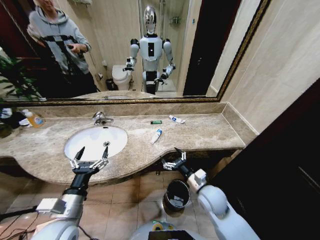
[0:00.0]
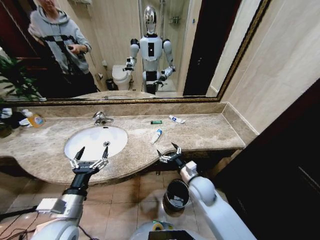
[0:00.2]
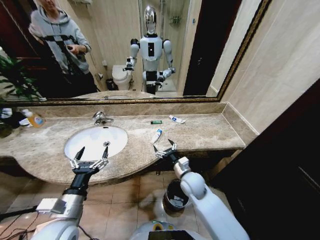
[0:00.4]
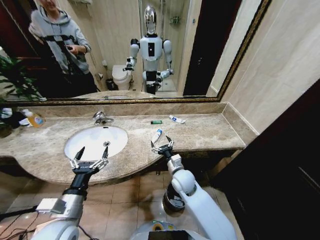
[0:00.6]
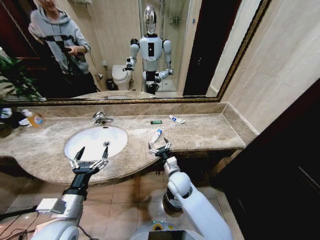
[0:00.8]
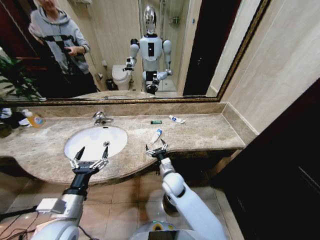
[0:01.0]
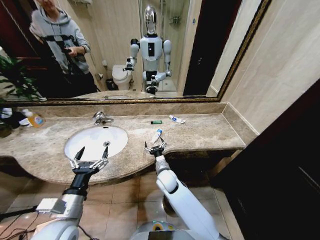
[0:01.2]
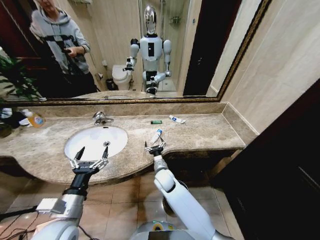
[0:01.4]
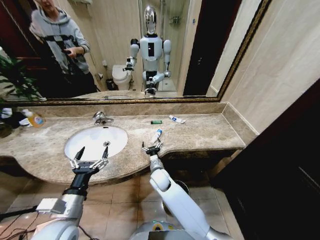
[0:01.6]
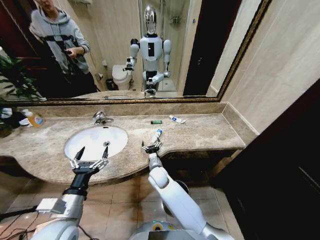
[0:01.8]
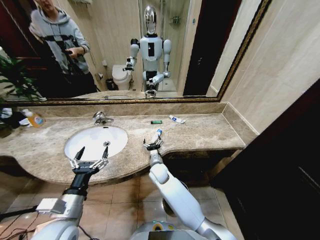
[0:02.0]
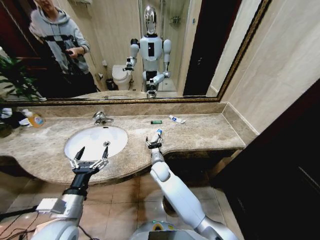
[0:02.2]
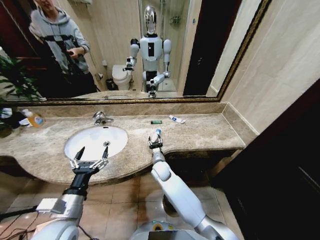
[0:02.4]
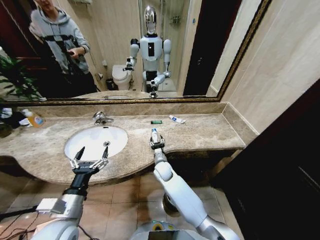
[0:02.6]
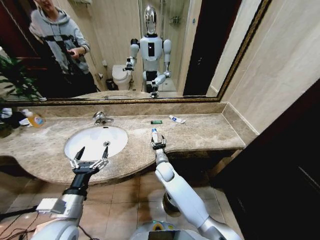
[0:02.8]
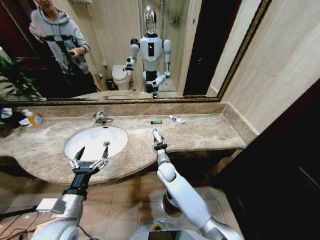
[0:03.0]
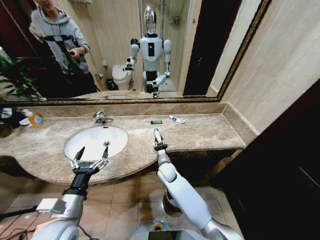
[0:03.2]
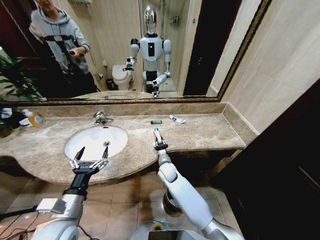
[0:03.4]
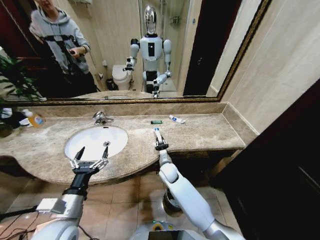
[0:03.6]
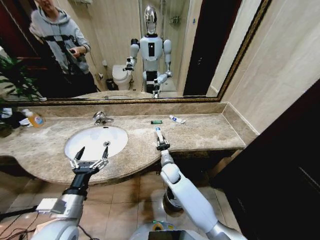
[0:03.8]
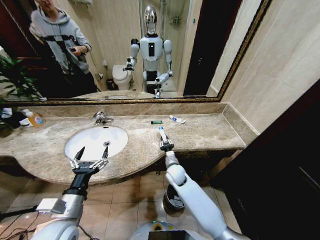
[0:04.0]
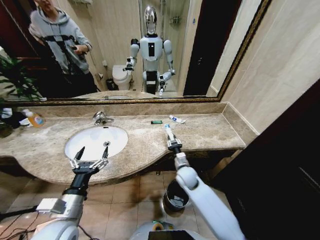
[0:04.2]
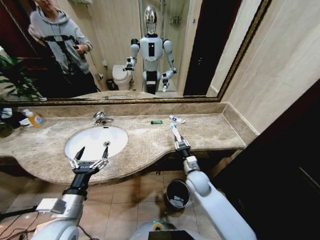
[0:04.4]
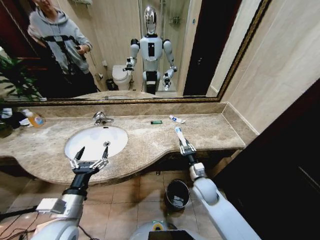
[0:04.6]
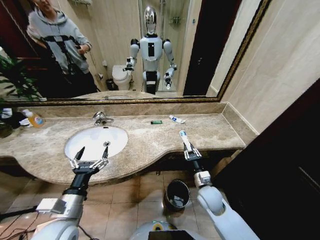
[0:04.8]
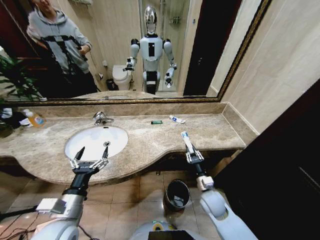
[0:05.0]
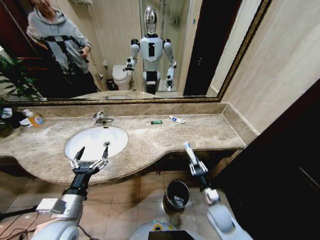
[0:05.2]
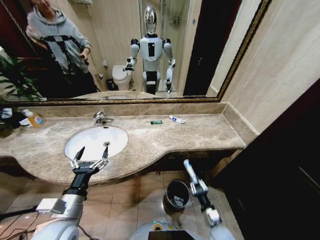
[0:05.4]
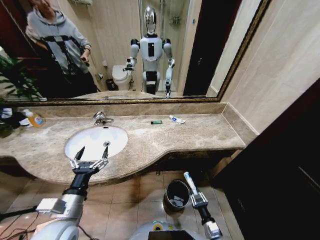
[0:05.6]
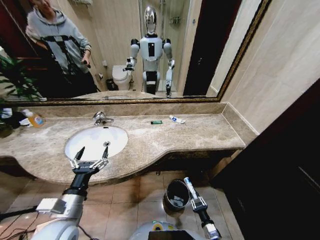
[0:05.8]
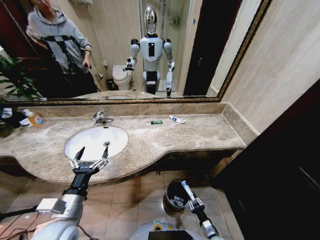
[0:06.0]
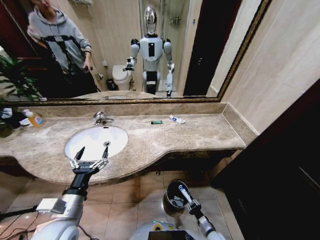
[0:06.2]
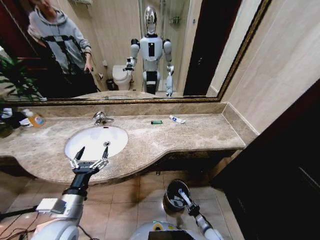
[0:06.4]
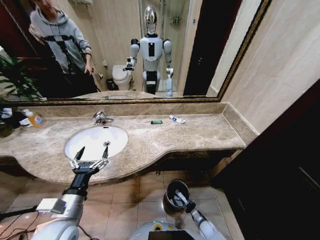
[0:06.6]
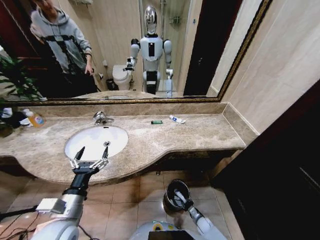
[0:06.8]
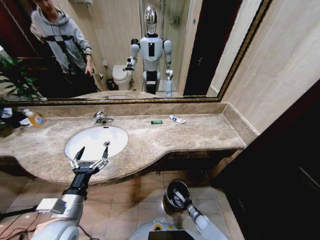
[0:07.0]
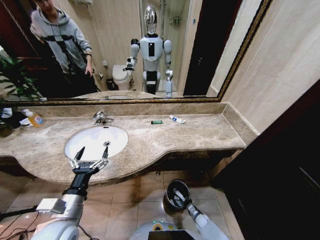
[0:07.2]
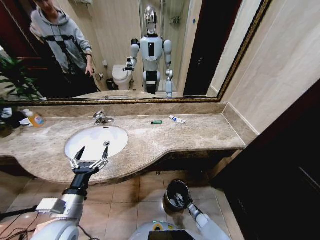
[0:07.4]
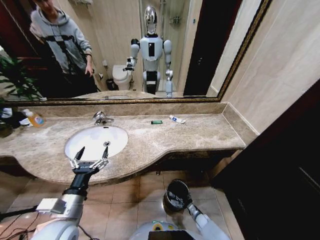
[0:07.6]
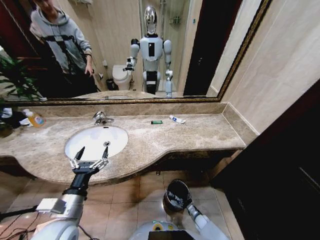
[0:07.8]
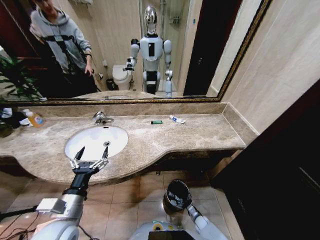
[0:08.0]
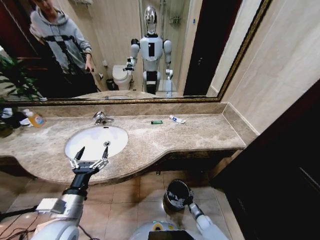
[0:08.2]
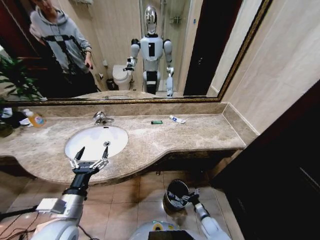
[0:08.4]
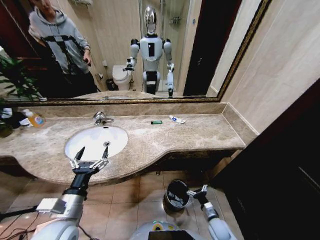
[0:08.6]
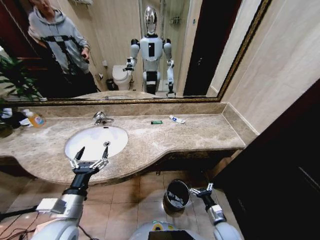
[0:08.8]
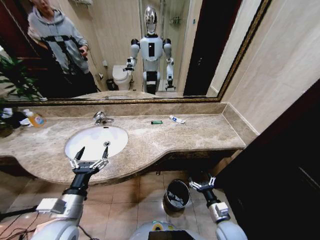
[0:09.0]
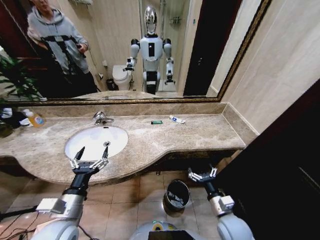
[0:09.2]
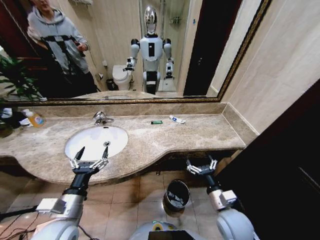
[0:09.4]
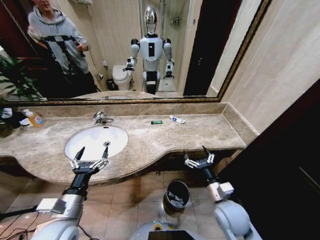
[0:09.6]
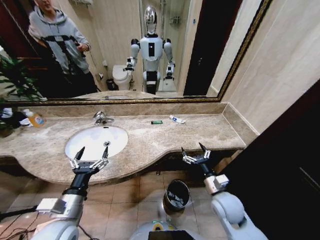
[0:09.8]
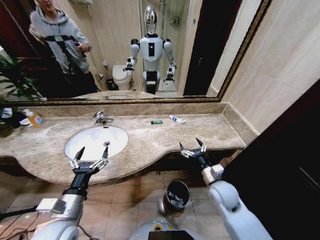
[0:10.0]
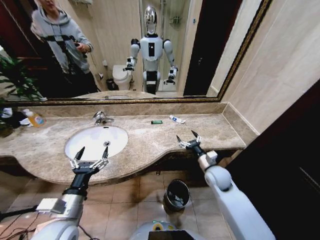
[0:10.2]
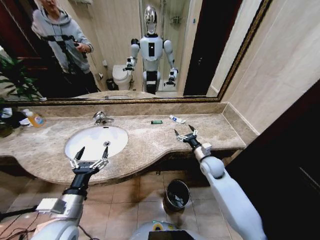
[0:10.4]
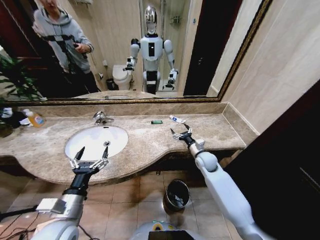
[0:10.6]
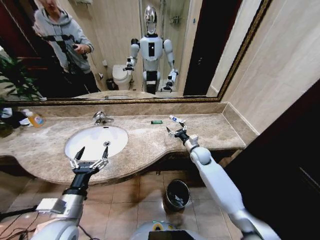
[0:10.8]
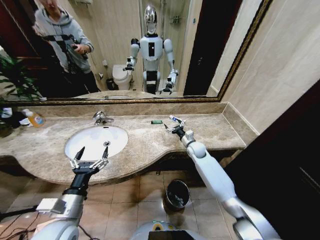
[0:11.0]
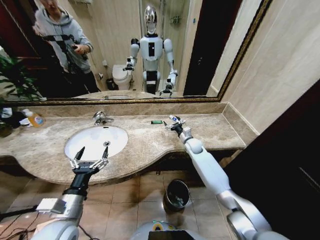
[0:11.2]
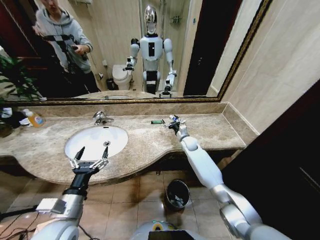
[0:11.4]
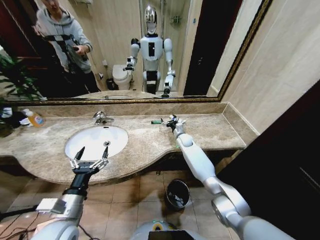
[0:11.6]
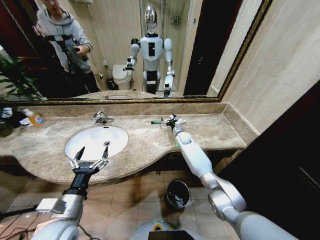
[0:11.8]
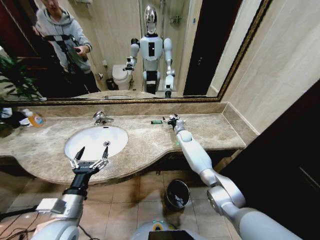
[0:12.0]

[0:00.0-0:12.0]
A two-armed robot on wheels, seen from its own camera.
Task of the whole recording: Pick up the trash from the sink and place it in the trash bin.
0:00.0 to 0:01.6: The right gripper is displaced to the left and forward by some 25 cm.
0:01.6 to 0:03.0: The right gripper changes place by roughly 5 cm, and closes its fingers.
0:03.0 to 0:04.4: The right gripper goes some 15 cm to the right and backward.
0:04.4 to 0:06.0: The right gripper is displaced downward, backward and to the right by approximately 35 cm.
0:06.0 to 0:07.6: The right gripper travels downward and forward by some 15 cm, and opens up.
0:07.6 to 0:09.0: The right gripper is displaced upward by about 30 cm, and opens.
0:09.0 to 0:10.4: The right gripper shifts some 25 cm forward and upward.
0:10.4 to 0:12.0: The right gripper is displaced forward by roughly 25 cm.

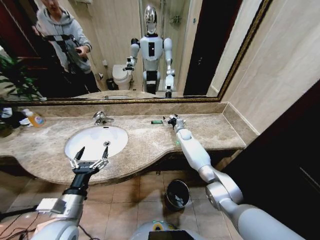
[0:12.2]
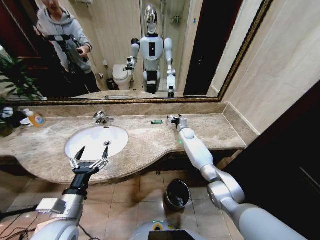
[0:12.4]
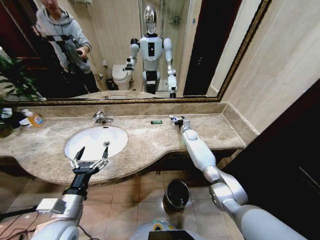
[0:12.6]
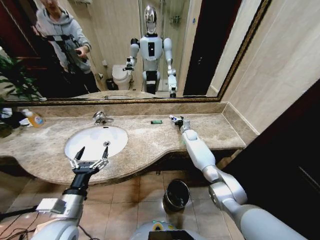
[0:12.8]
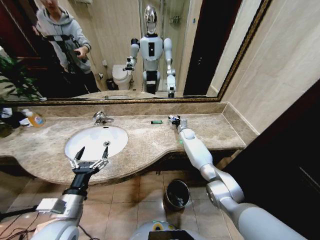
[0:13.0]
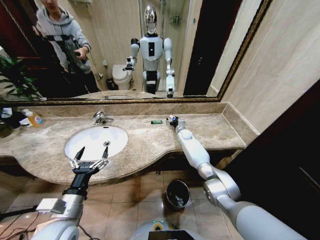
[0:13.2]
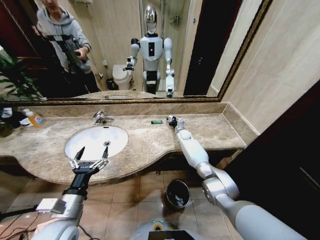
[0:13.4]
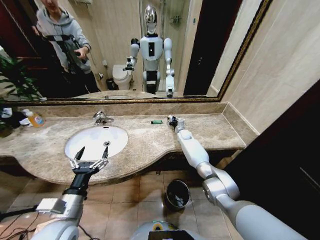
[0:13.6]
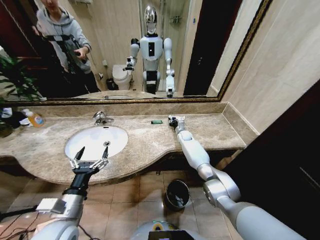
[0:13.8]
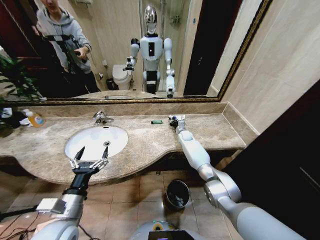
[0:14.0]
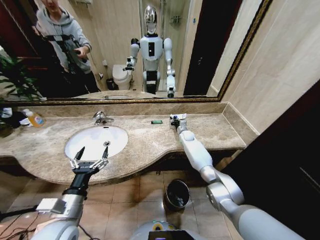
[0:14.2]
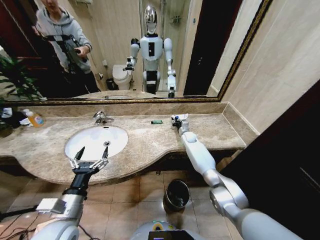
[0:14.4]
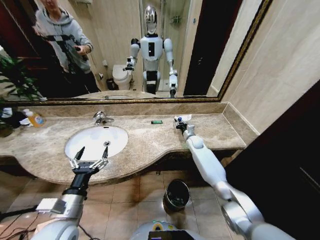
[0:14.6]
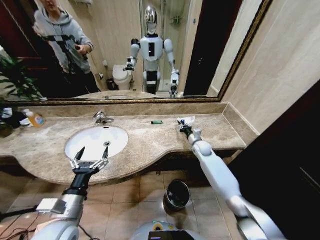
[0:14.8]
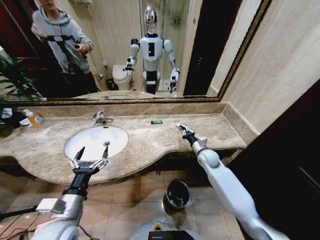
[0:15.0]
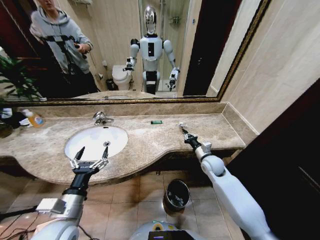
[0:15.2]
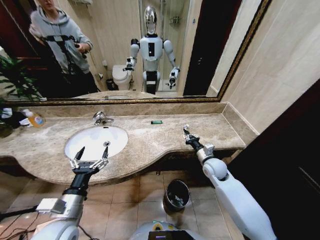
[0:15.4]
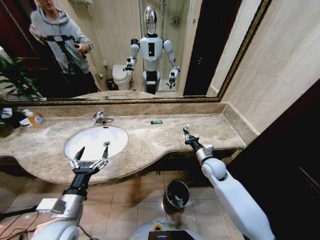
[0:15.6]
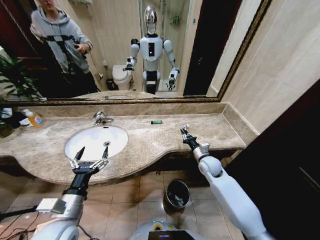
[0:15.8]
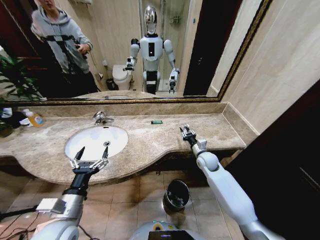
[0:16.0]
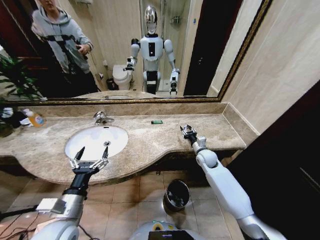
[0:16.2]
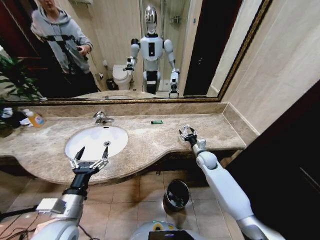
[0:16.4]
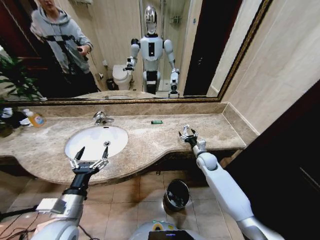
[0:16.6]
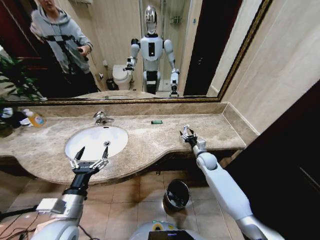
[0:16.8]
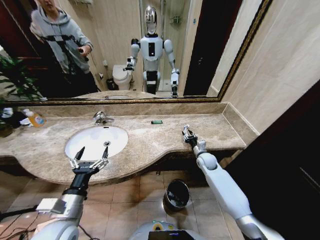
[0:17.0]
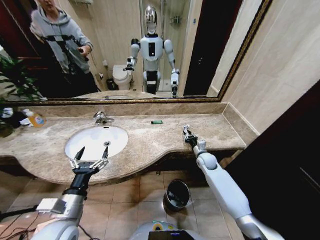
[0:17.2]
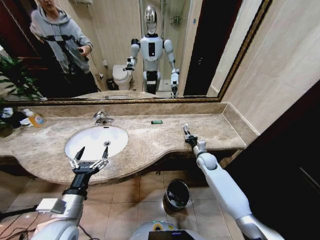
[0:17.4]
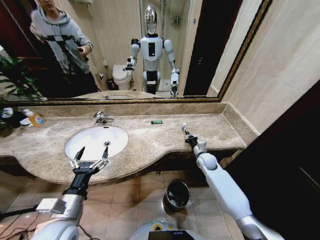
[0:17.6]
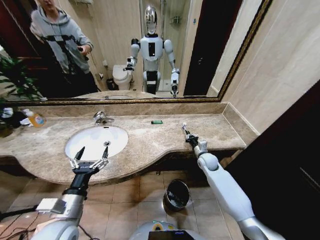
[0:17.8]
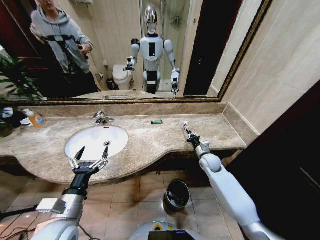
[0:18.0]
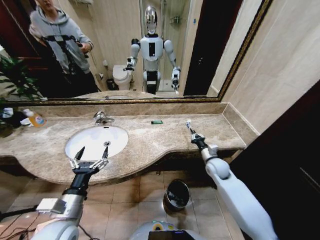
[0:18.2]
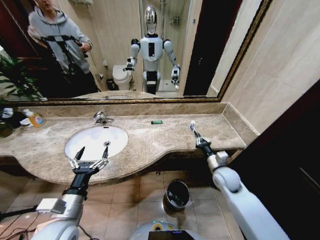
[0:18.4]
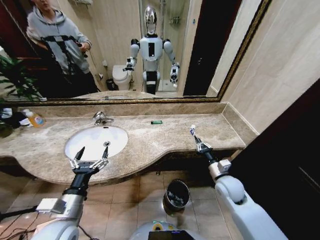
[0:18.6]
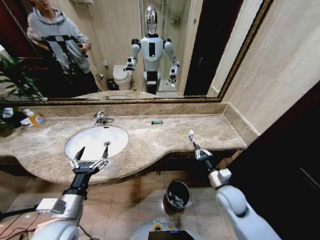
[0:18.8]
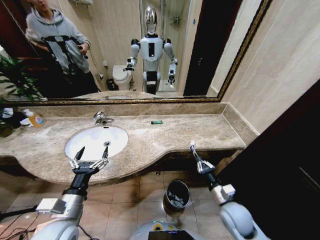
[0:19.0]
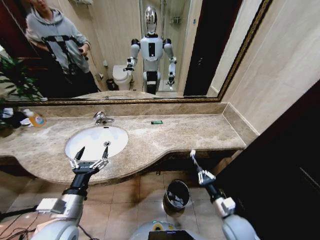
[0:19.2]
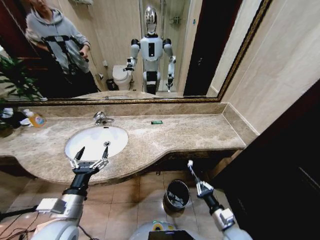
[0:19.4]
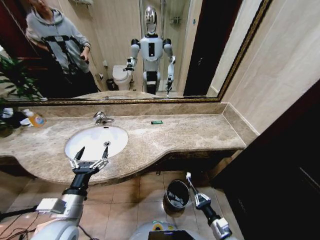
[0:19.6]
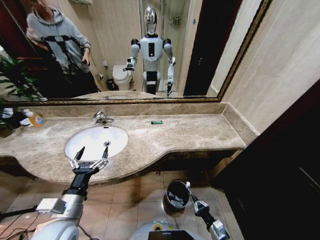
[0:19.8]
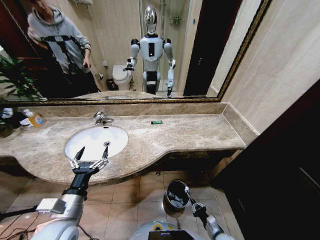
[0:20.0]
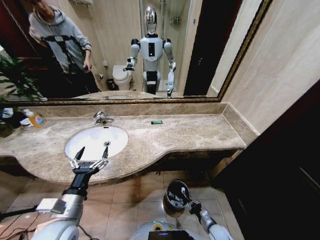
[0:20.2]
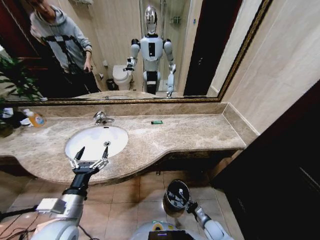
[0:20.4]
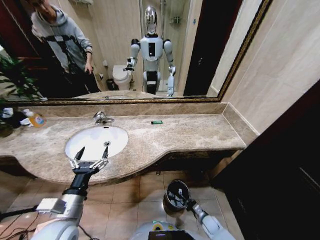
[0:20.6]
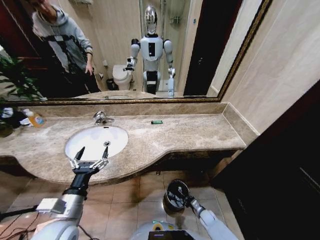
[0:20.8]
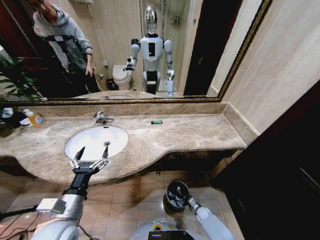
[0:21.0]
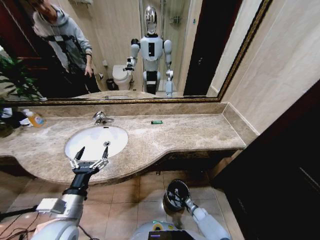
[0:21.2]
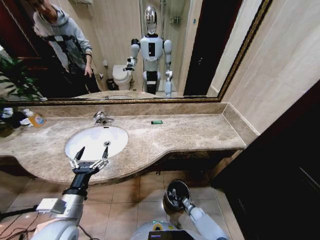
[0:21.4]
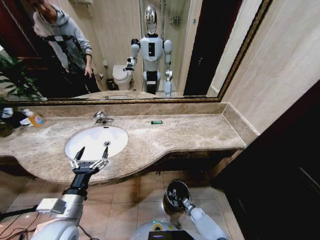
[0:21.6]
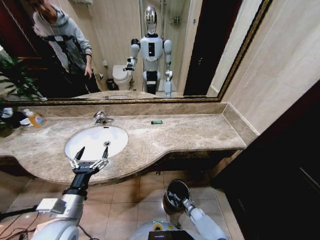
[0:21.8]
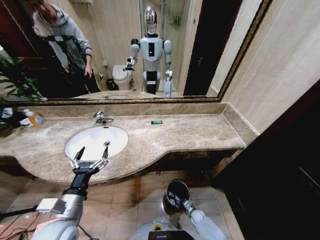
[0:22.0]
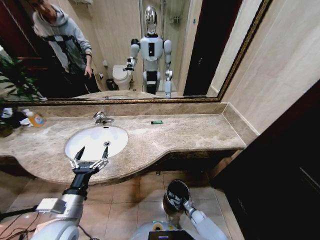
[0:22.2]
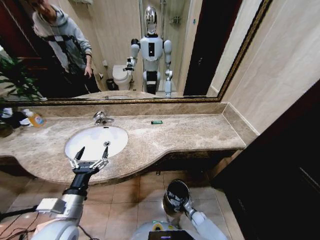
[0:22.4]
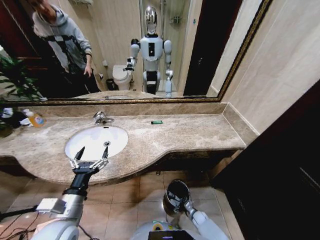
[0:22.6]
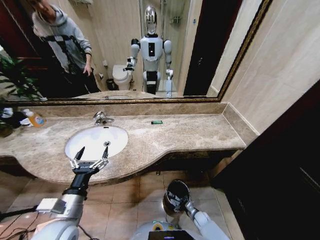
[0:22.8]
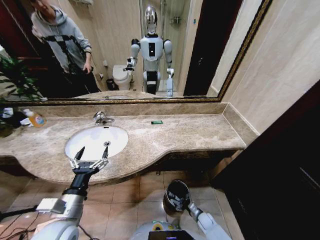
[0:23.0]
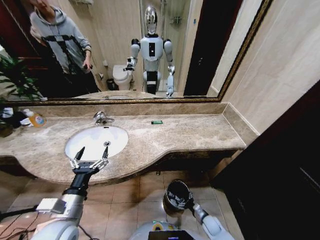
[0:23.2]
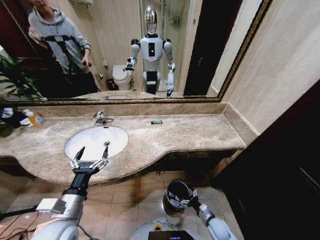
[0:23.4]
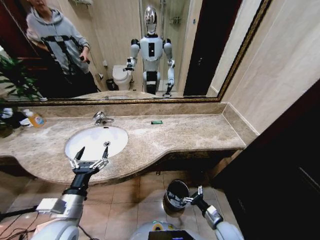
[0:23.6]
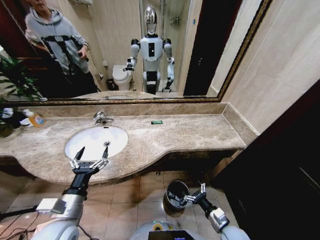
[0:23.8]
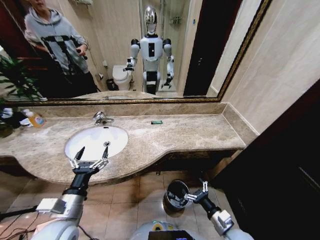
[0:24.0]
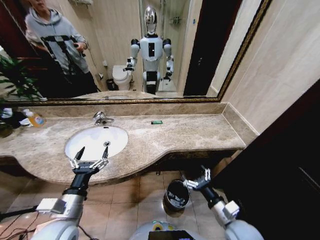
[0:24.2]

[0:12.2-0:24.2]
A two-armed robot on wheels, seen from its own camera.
Task of the whole recording: Pick up the trash from the sink and place it in the trash bin.
0:12.2 to 0:13.8: The right gripper closes up.
0:13.8 to 0:15.2: The right gripper travels backward by approximately 25 cm.
0:15.2 to 0:16.6: The right gripper moves roughly 5 cm, and opens up.
0:16.6 to 0:18.2: The right gripper changes place by roughly 5 cm, and closes.
0:18.2 to 0:19.8: The right gripper travels backward and downward by about 35 cm.
0:19.8 to 0:21.2: The right gripper shifts approximately 25 cm downward and forward.
0:21.2 to 0:22.6: The right gripper opens its fingers.
0:22.6 to 0:24.2: The right gripper heads upward, covering roughly 35 cm.
